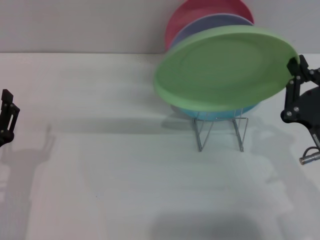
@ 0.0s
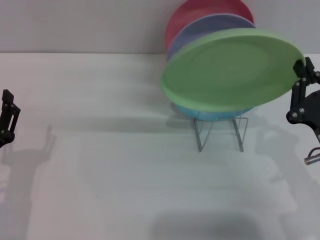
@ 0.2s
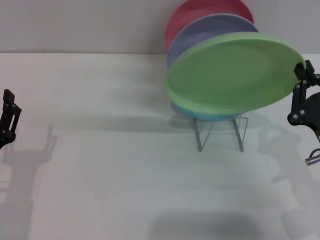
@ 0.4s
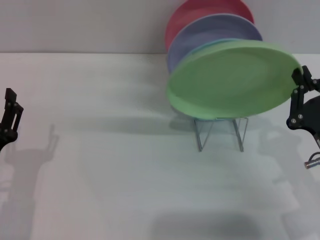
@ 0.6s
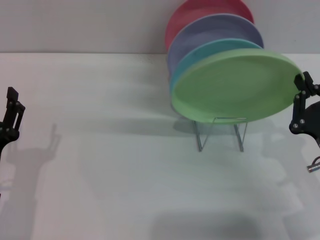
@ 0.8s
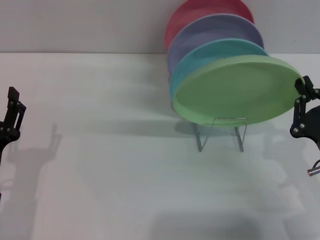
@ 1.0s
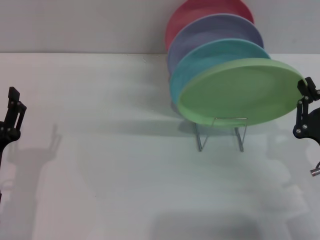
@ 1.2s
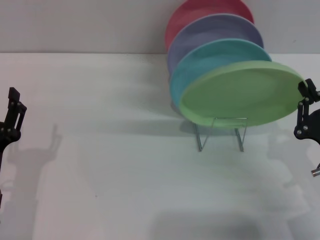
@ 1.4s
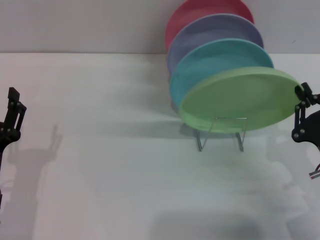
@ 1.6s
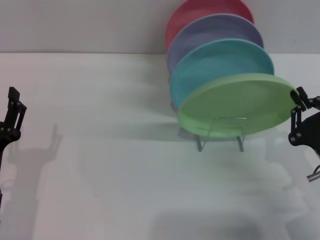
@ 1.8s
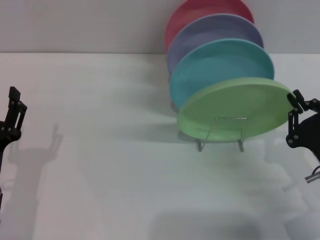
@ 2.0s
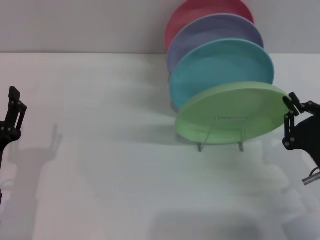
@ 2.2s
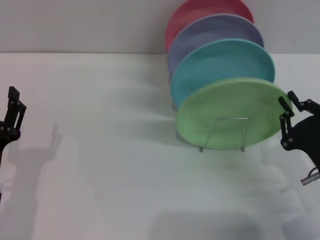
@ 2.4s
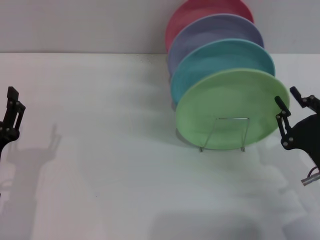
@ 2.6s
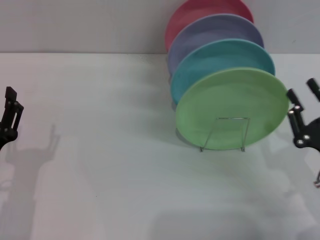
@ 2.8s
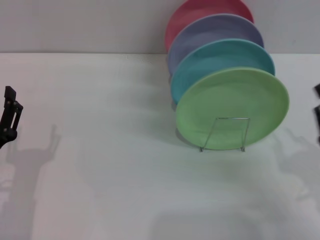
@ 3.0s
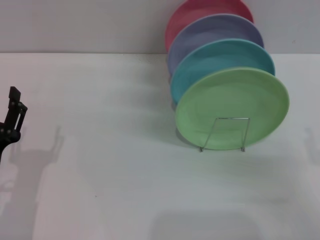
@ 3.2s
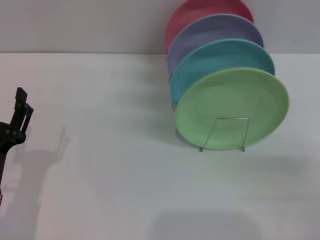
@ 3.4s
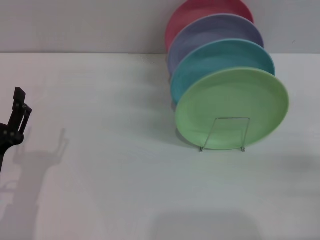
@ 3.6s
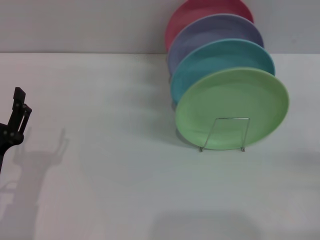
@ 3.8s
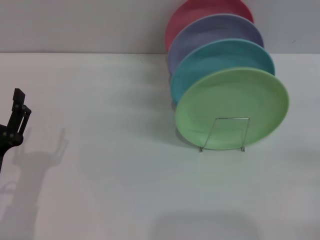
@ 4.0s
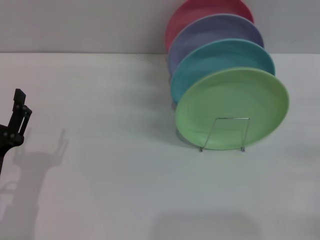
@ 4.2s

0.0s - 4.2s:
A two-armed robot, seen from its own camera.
Task of the whole recording: Grip the plate with one hand, pass it to the other, then set it on the shelf.
Step, 0.0s - 2.6s: Place the plate on the shelf with the right gripper.
0.0s - 1.4s: The right gripper changes place by roughly 5 cm.
1.4s - 2.8s: The grippers make only small movements.
2.8s - 4.2s: The right gripper is displaced to the right by some 10 cm, and opens.

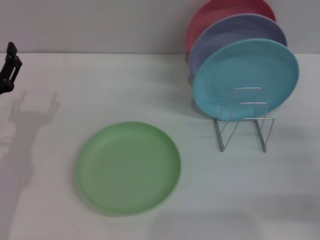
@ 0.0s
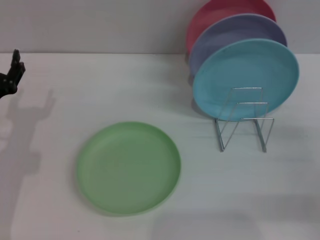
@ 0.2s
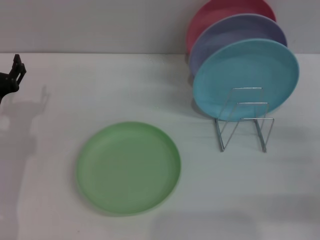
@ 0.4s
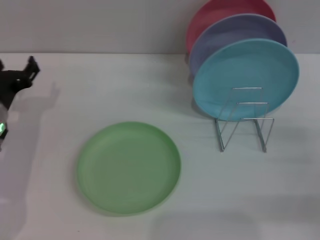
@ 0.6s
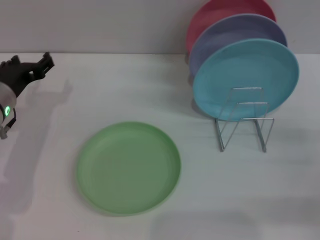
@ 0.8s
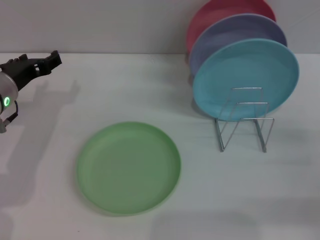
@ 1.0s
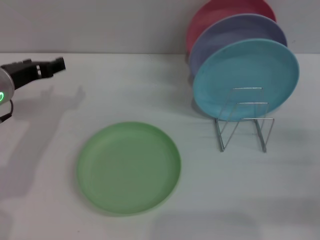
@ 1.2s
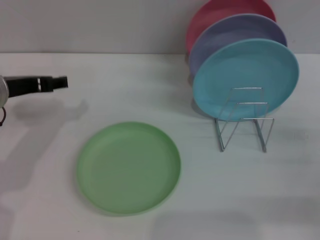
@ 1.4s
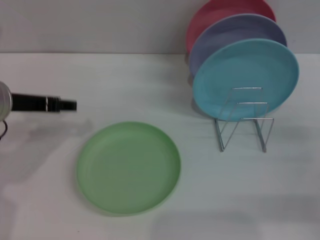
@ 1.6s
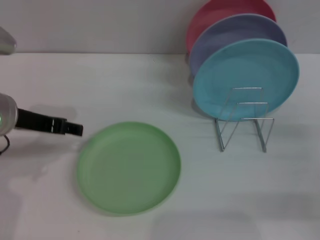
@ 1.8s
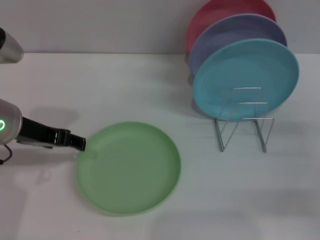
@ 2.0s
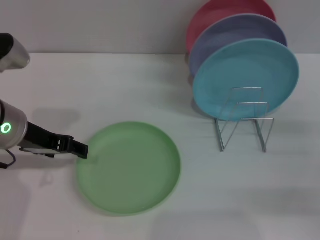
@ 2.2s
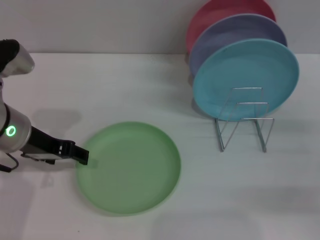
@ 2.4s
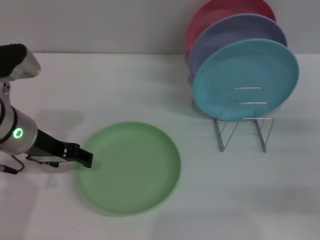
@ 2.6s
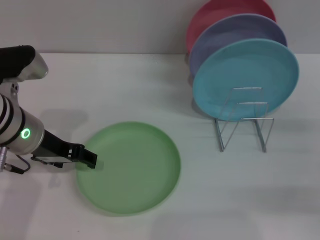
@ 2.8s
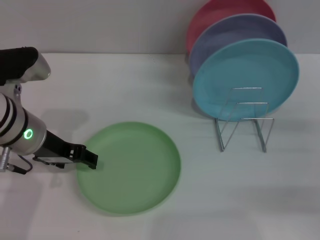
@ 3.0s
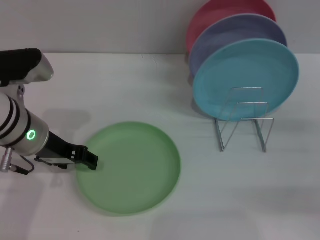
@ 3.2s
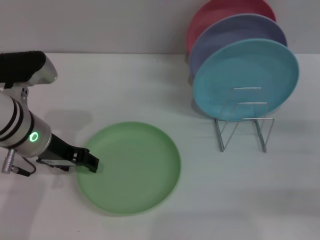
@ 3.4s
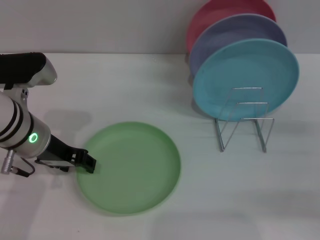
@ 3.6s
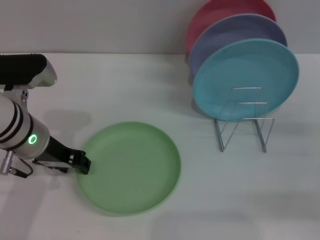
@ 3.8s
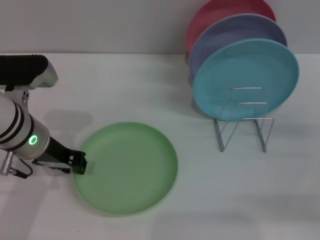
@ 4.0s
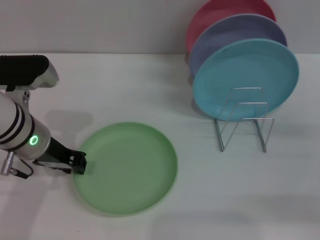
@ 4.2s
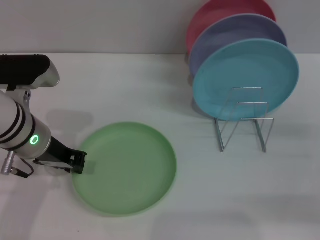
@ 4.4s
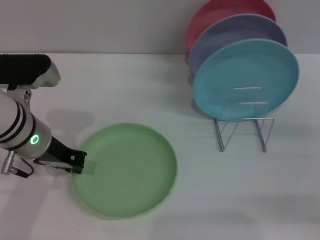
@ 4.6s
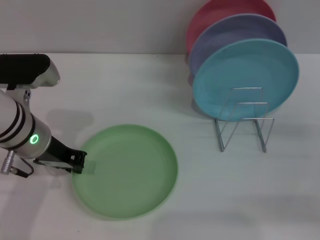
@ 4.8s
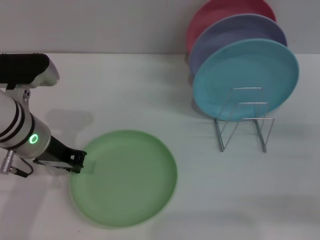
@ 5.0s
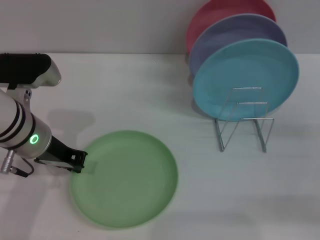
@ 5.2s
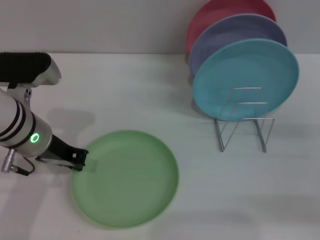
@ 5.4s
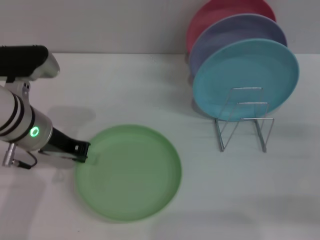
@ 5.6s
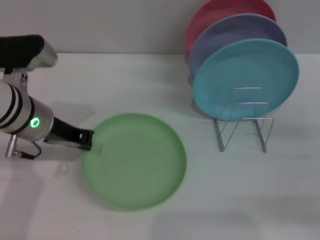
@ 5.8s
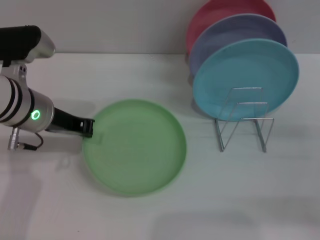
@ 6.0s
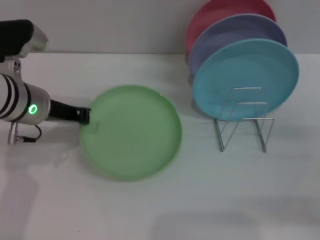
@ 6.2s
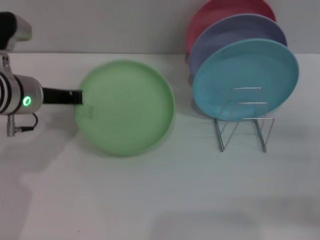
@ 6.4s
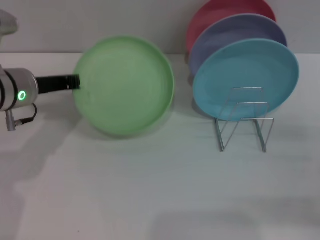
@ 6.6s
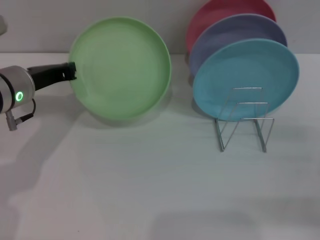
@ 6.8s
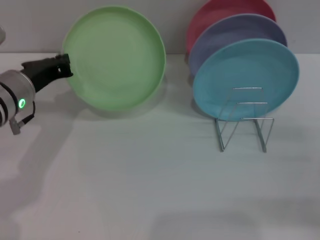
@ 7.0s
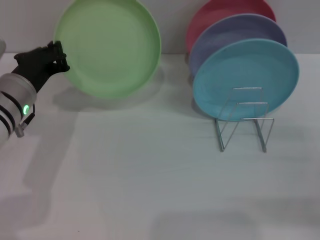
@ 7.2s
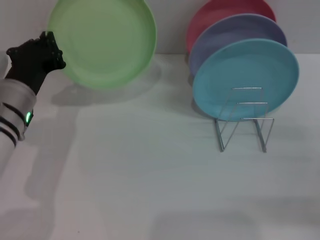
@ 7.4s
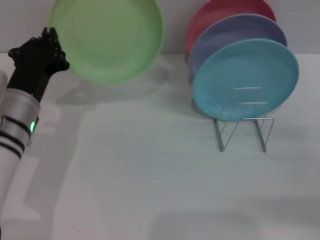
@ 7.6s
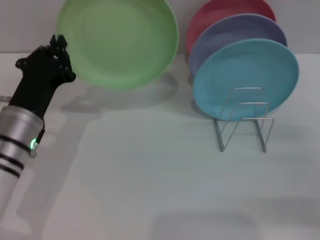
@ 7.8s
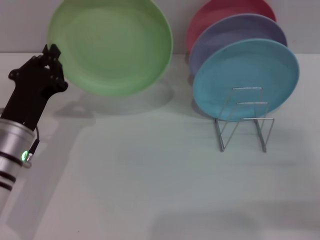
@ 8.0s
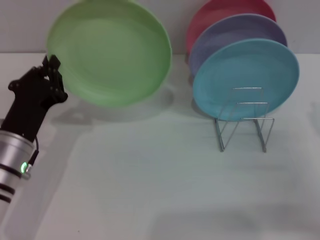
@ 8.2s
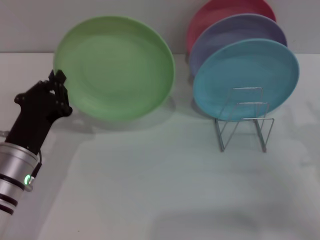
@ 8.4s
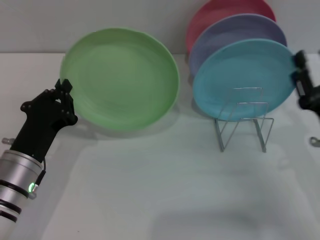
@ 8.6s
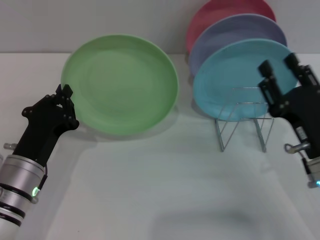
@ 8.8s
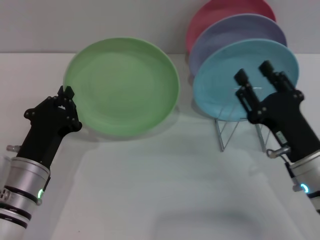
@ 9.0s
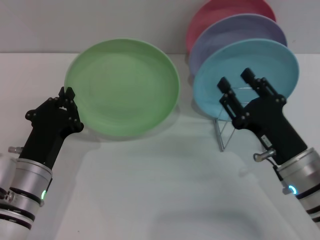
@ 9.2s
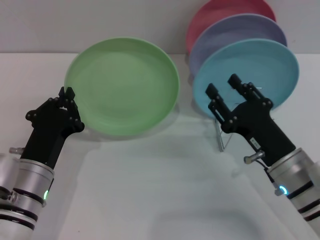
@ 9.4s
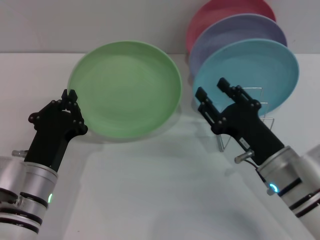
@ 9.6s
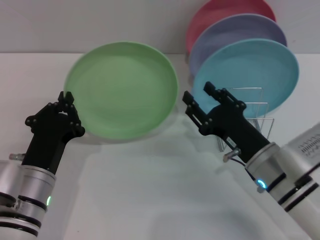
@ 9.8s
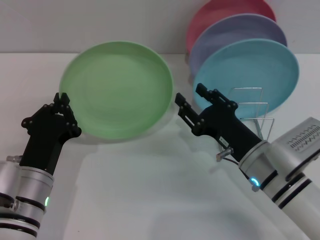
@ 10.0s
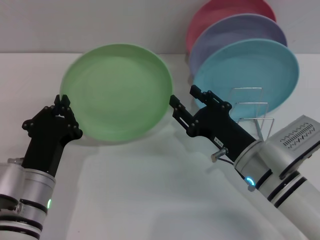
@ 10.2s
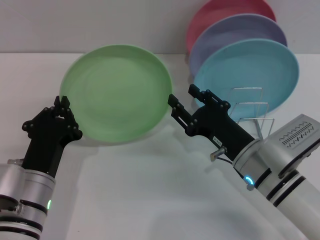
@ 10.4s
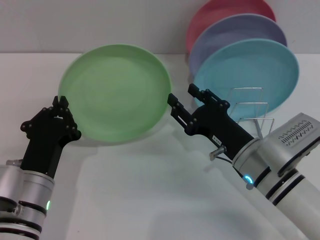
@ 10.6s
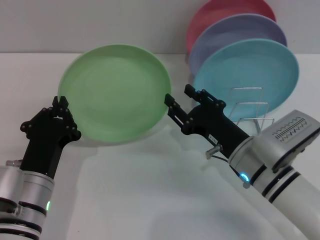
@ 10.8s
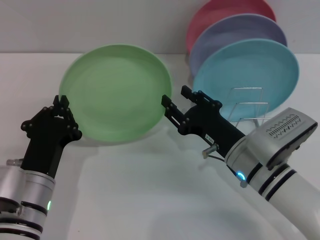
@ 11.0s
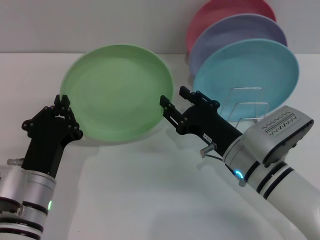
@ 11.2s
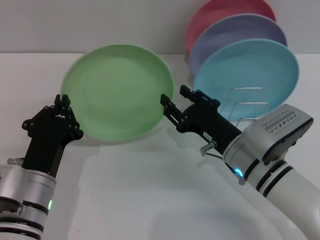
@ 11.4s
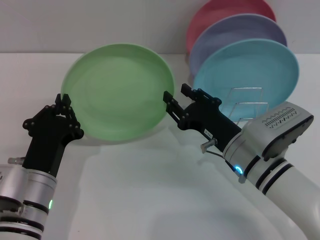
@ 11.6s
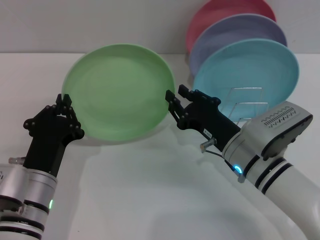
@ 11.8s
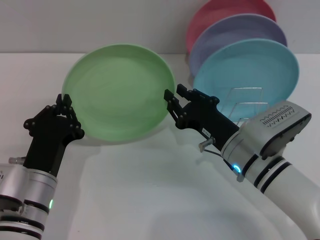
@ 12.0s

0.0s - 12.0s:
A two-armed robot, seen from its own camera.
Task of the whole recording: Grip the plate with one hand, pass it to the other, then set it on the shelf.
Step, 0.0s - 7.0s: Pick up the plate with the left gripper.
0.0s - 1.6s: The left gripper heads upward, covering approximately 10 cm.
3.0s - 4.4s: The left gripper closes its fingers.
4.4s - 6.0s: The grippers move only a little.
6.0s - 7.6s: The left gripper travels downward by some 5 cm.
7.6s - 9.0s: The right gripper goes some 15 cm to the left. Meanwhile the left gripper goes some 10 cm backward and downward.
9.0s - 10.4s: The right gripper heads to the left, covering about 5 cm.
10.4s - 12.0s: The right gripper closes its fingers.

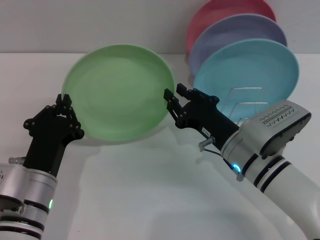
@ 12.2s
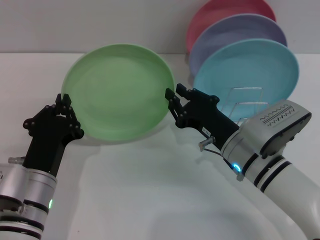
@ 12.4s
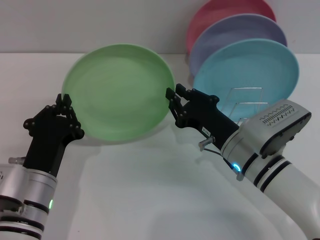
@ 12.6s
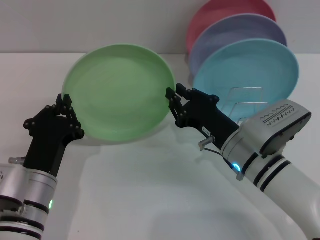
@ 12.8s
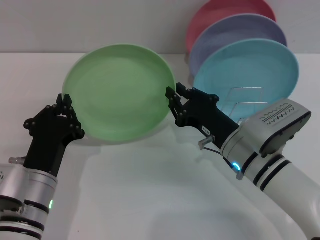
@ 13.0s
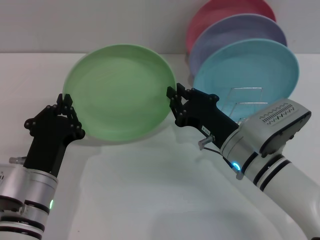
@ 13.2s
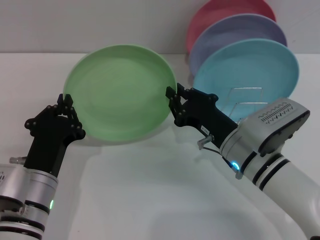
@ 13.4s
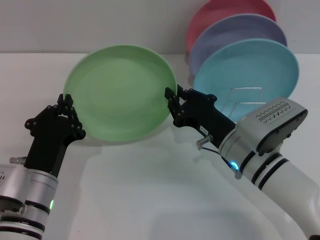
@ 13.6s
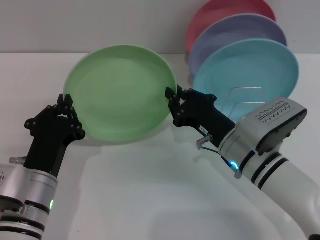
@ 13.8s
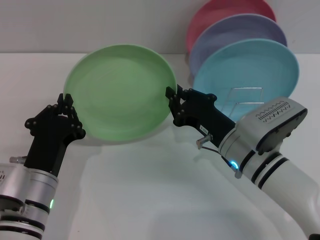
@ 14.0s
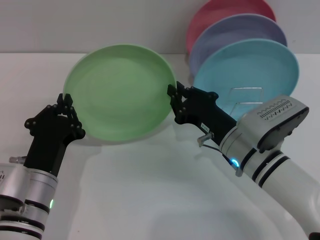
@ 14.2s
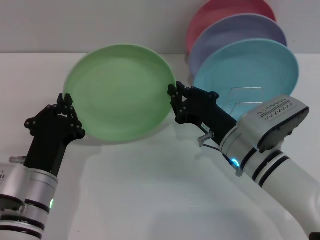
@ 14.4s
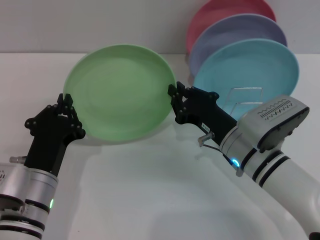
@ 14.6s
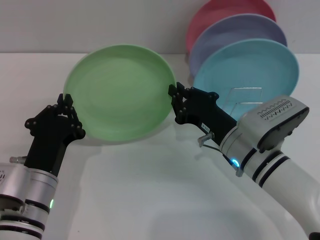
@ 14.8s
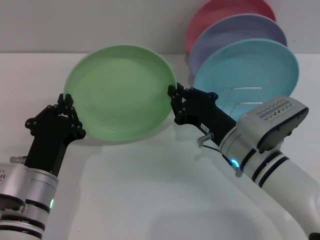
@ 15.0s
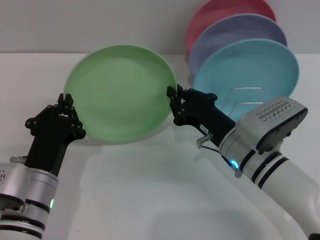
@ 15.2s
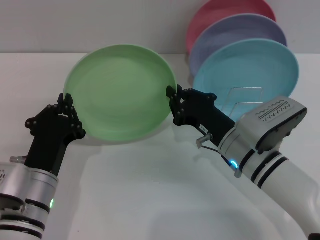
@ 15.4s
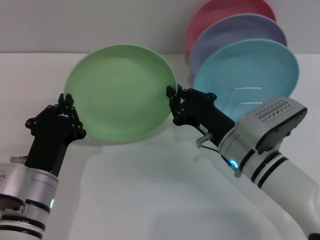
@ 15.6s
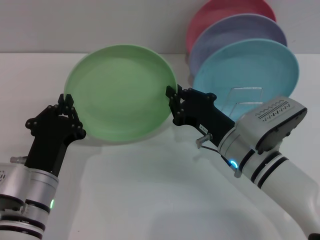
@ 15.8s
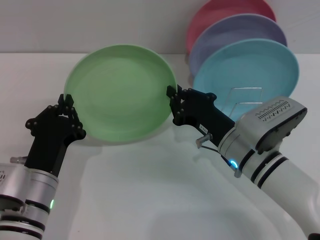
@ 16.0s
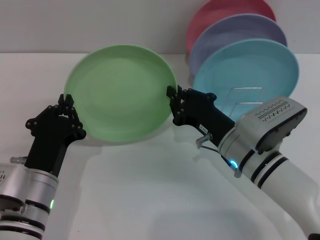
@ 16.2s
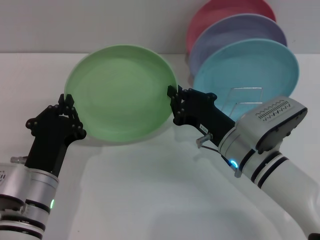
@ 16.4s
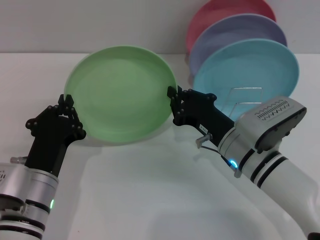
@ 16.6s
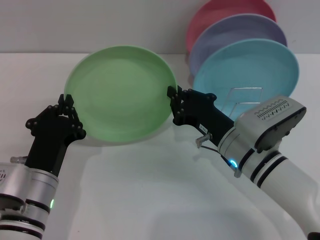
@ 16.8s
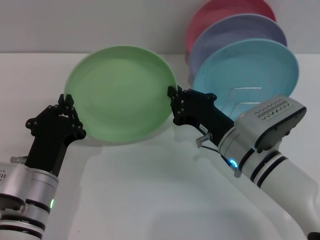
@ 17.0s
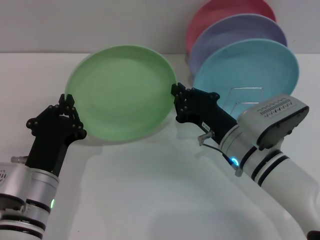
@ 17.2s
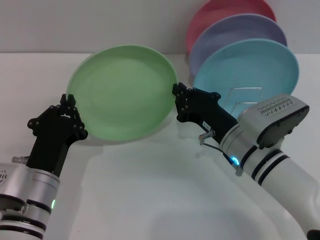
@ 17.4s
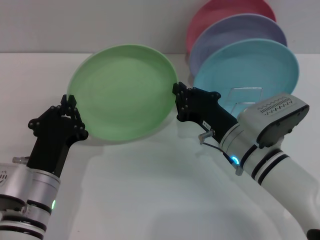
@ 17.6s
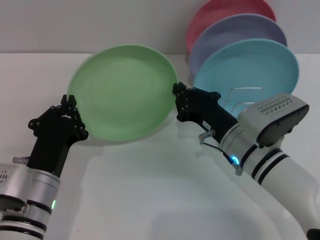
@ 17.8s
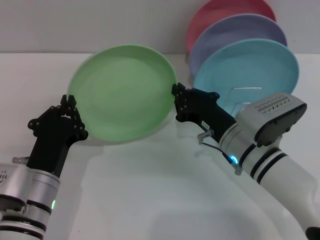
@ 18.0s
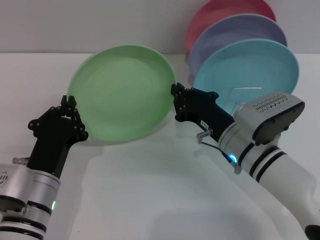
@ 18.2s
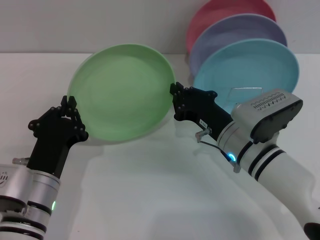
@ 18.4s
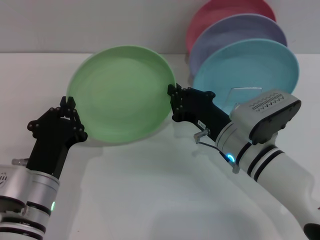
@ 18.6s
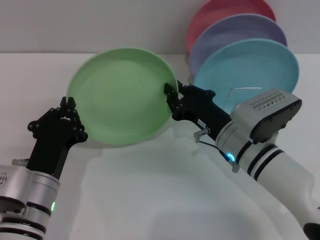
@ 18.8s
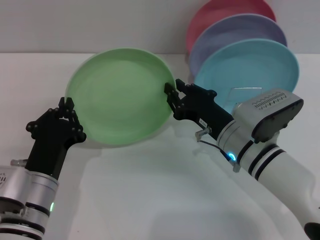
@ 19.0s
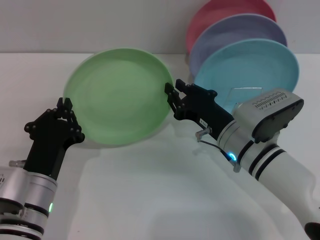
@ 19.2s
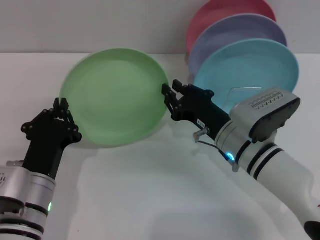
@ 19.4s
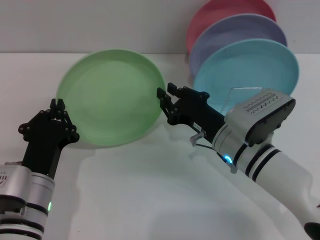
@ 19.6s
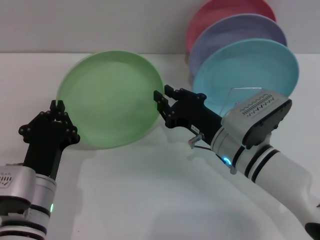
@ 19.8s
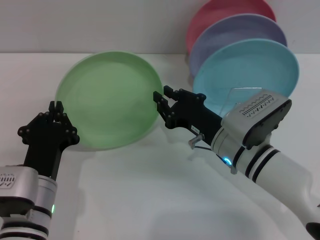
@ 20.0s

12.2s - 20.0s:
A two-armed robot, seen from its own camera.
Task of the whole recording: Grip the plate with one hand, pass it to the other, then set it on the shelf.
12.2s - 16.8s: Neither gripper changes place.
16.8s - 18.4s: Both grippers stay put.
18.4s - 20.0s: The right gripper opens its fingers.
